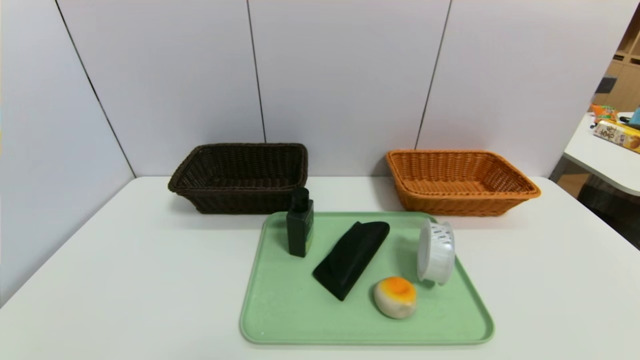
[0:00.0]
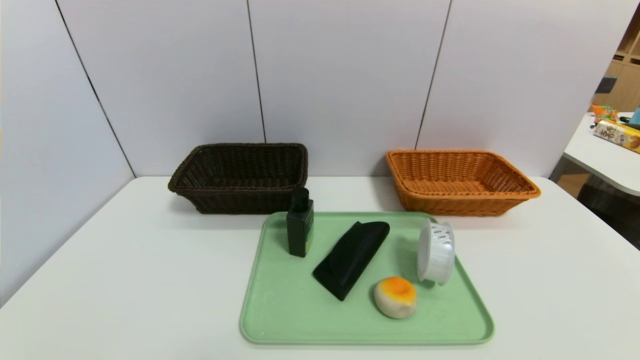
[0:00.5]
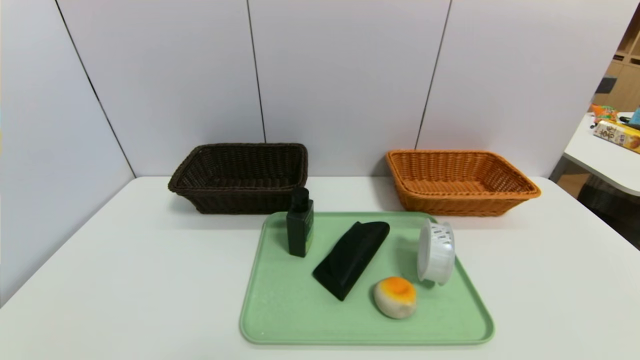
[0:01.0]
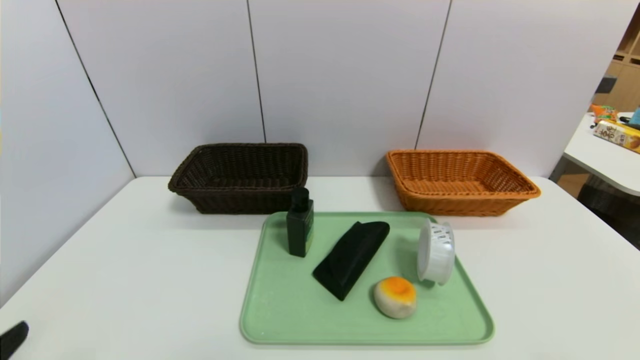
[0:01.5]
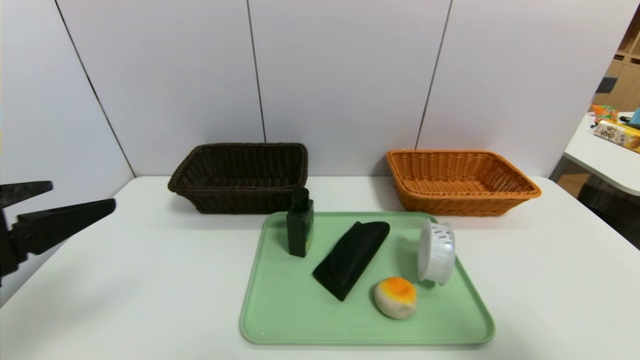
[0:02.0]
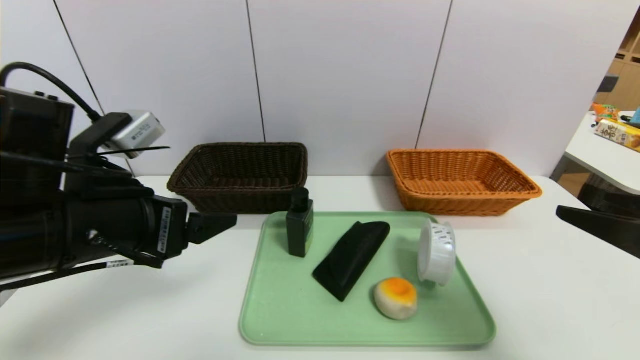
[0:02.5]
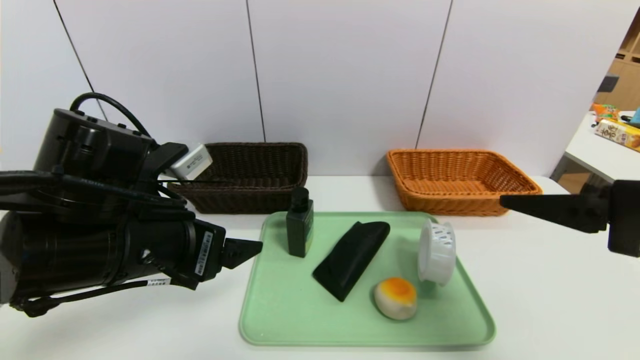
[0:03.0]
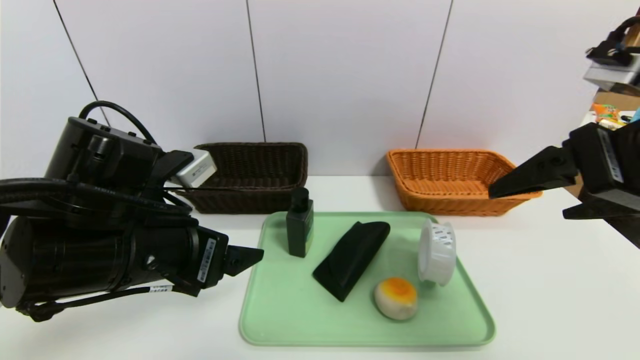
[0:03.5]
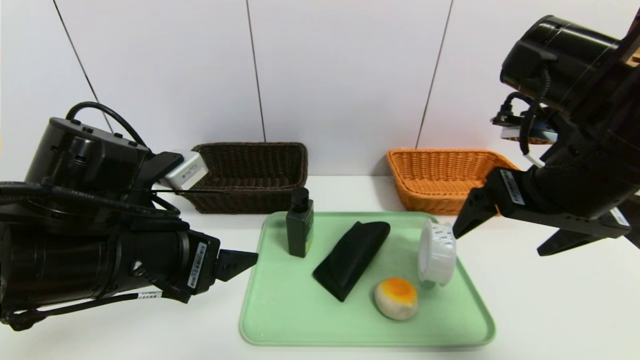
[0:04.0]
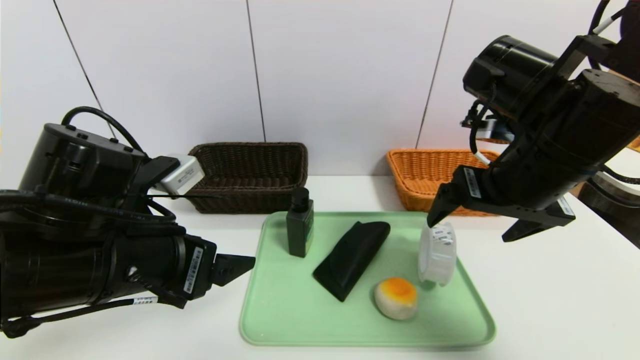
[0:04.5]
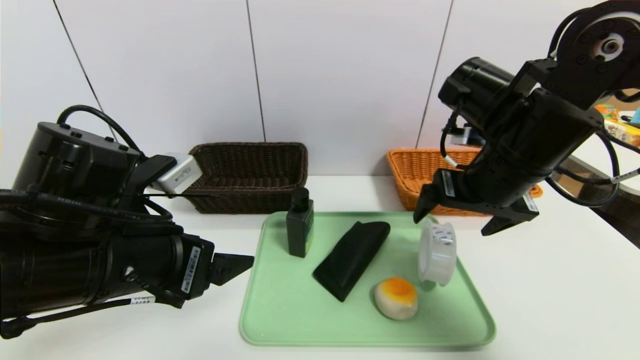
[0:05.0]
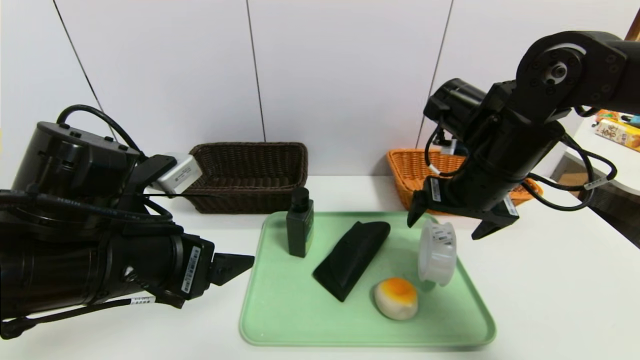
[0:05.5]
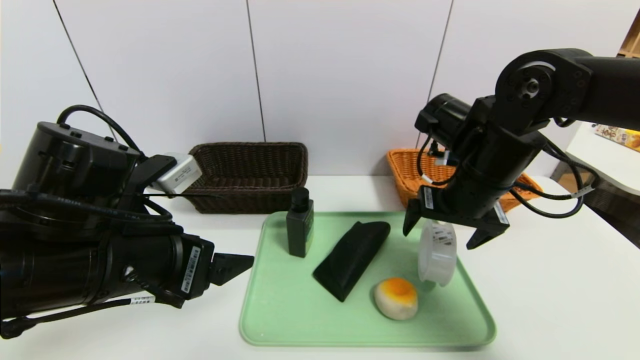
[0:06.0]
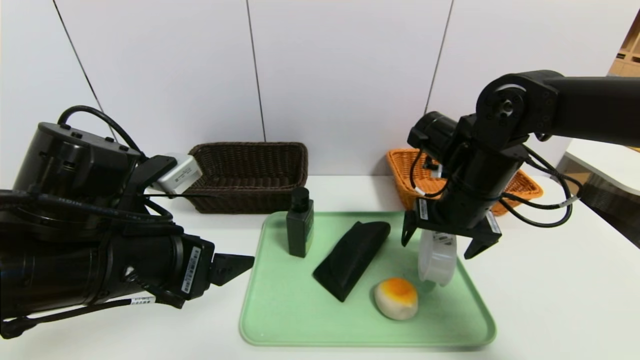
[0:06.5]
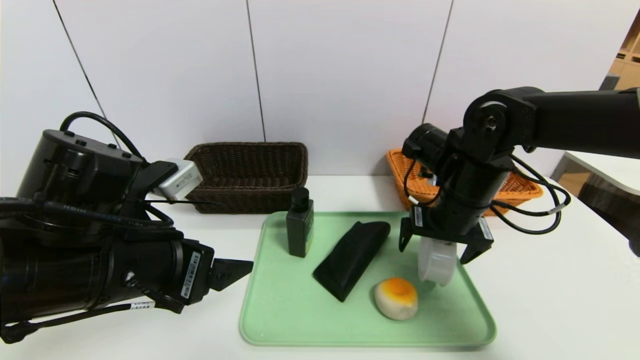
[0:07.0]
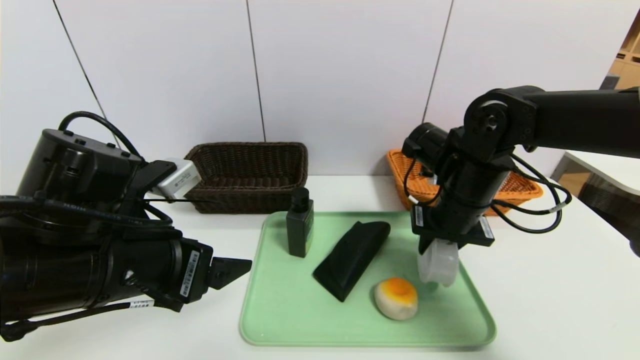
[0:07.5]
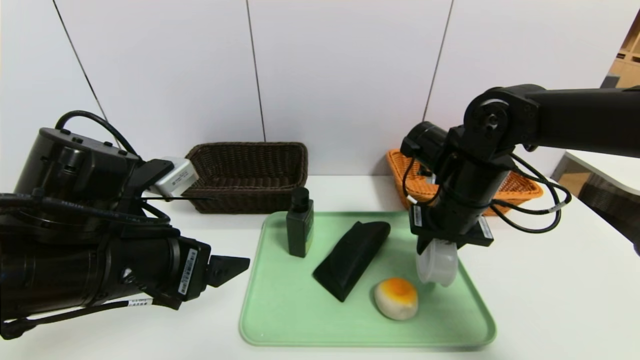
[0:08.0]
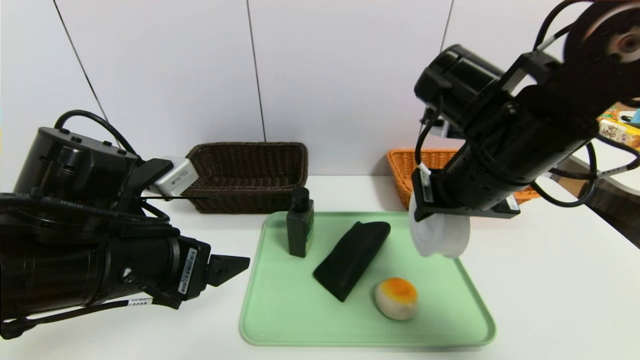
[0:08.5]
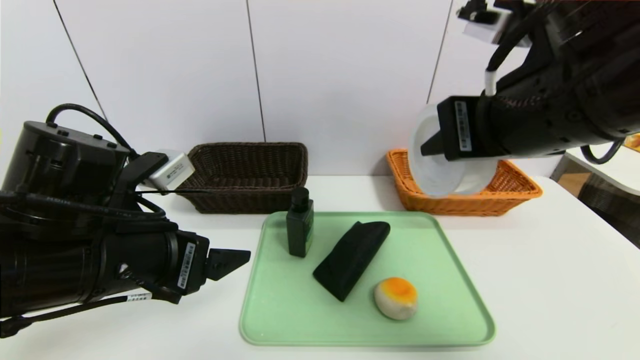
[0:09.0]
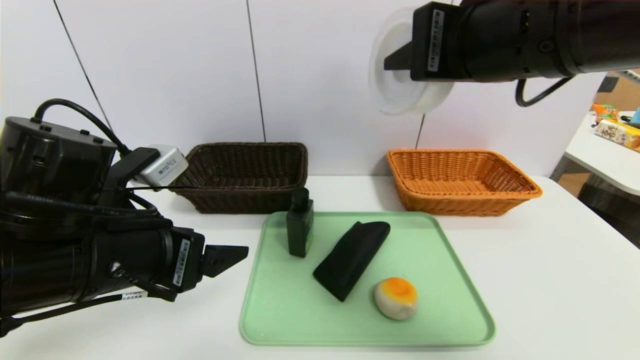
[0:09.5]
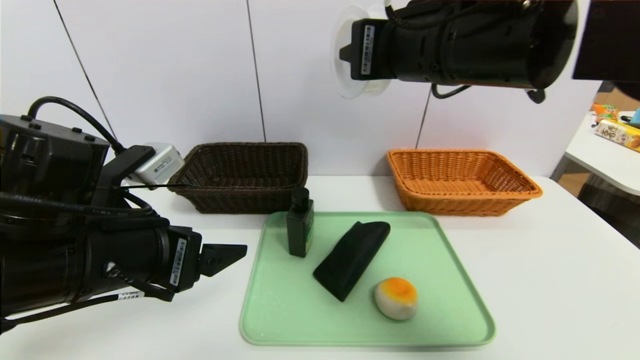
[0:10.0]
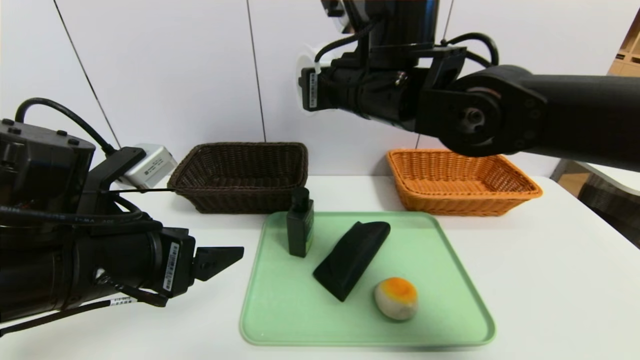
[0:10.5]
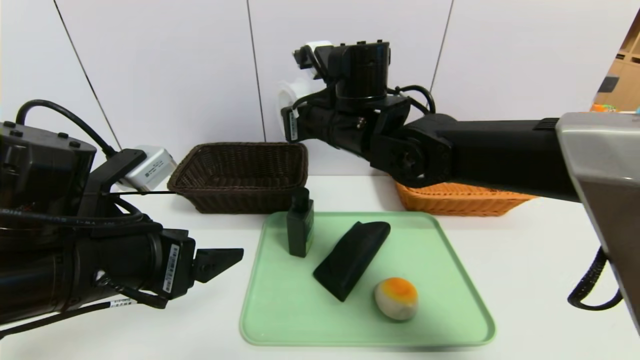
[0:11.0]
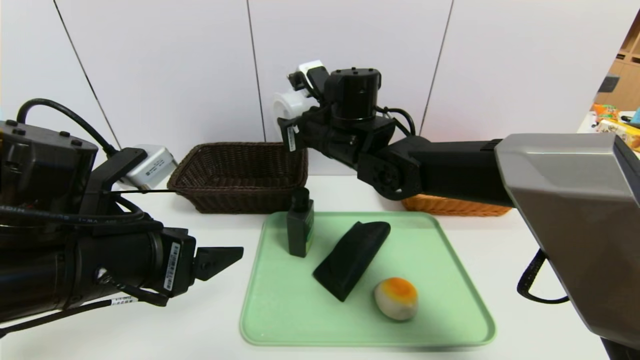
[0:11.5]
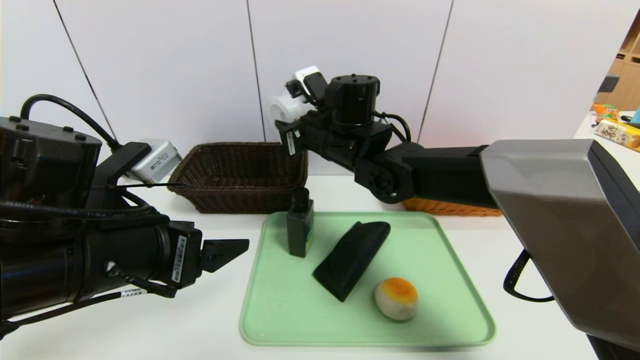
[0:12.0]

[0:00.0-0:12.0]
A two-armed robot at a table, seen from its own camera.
Task of the whole recording: place the food in the right basket with the right gripper, and place the non food items in the left basket with the left gripper.
0:00.0 to 0:02.0: The right gripper travels upward by about 20 cm, while the left gripper heads upward and forward, covering some 25 cm.
0:02.0 to 0:04.0: The left gripper goes some 15 cm to the right, forward and downward; the right gripper heads forward and to the left, covering some 20 cm.
0:04.0 to 0:06.0: The right gripper moves forward and downward, roughly 10 cm.
0:06.0 to 0:08.0: The right gripper closes.
0:08.0 to 0:10.0: The right gripper goes about 20 cm upward and to the left.
0:10.0 to 0:12.0: The right gripper is displaced downward, forward and to the left by about 20 cm.

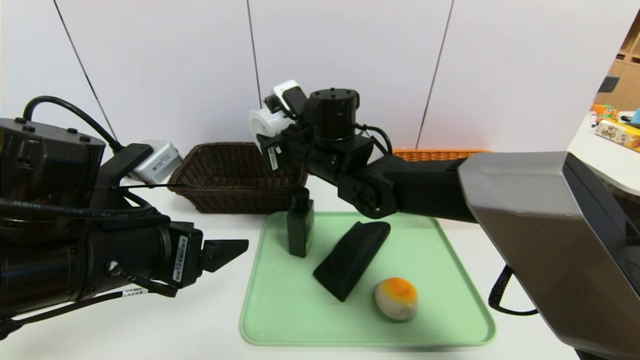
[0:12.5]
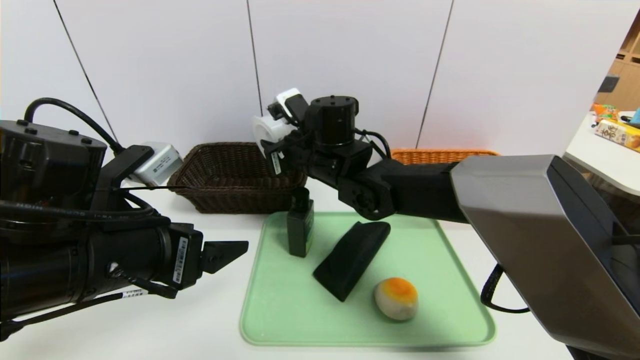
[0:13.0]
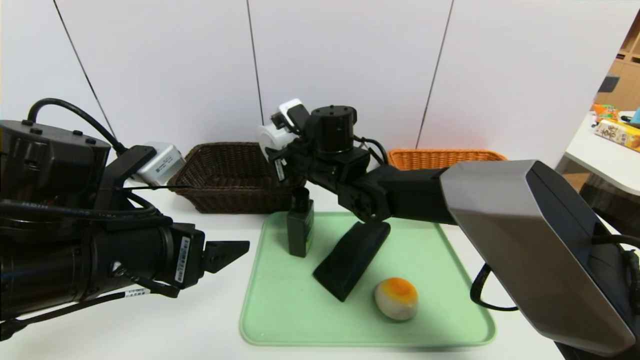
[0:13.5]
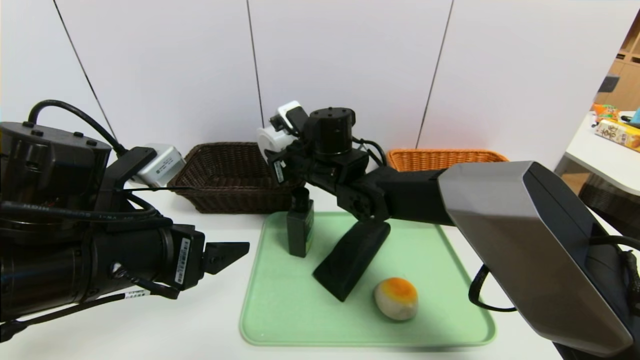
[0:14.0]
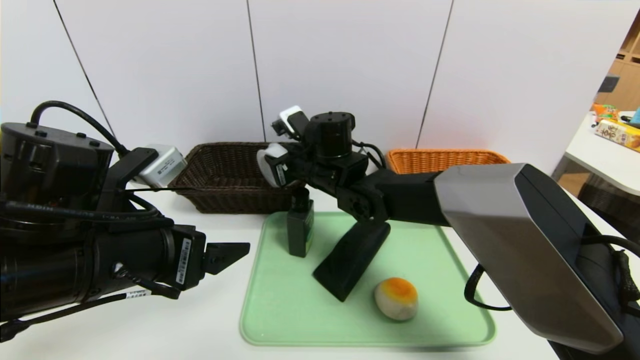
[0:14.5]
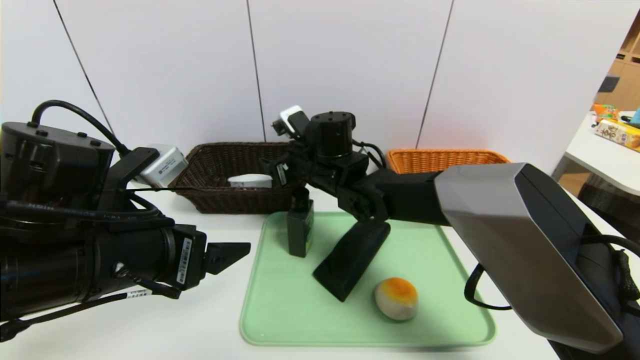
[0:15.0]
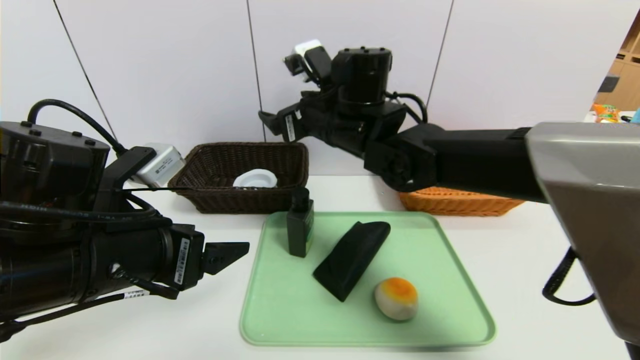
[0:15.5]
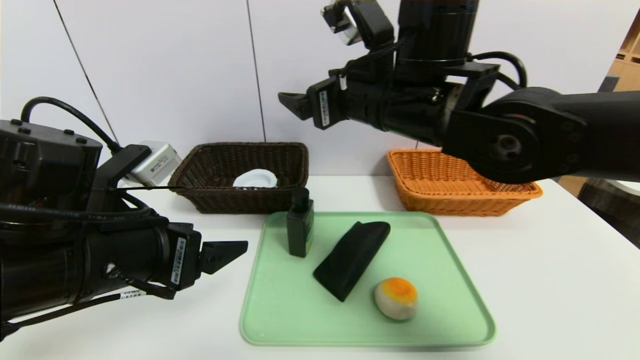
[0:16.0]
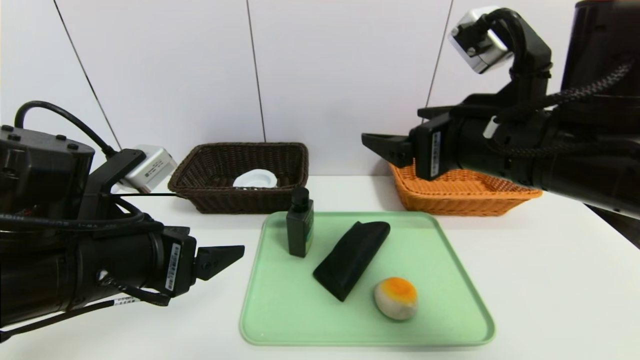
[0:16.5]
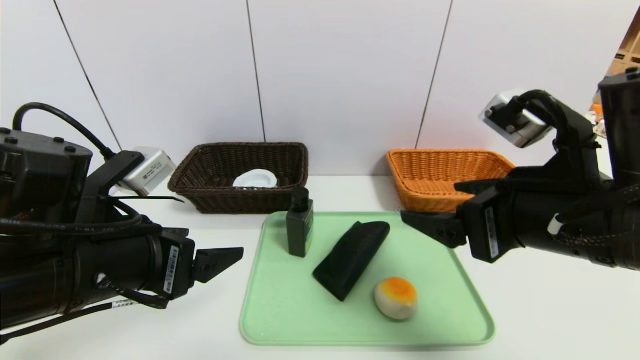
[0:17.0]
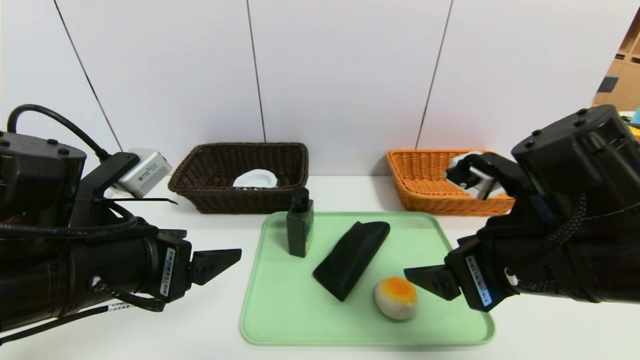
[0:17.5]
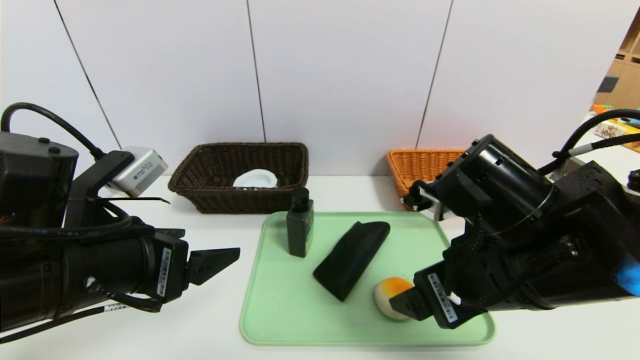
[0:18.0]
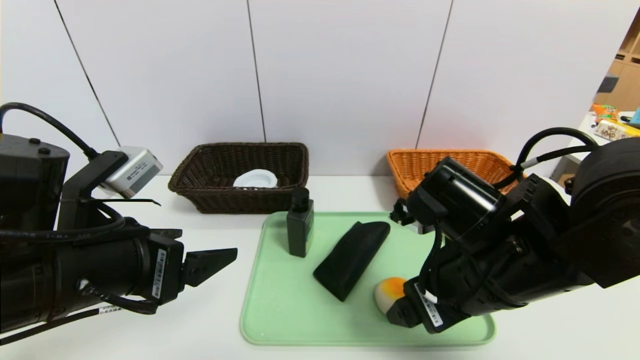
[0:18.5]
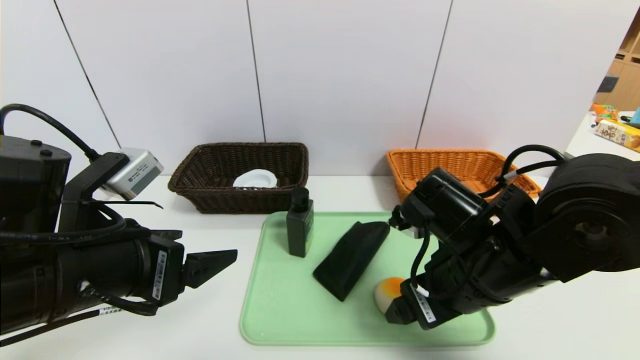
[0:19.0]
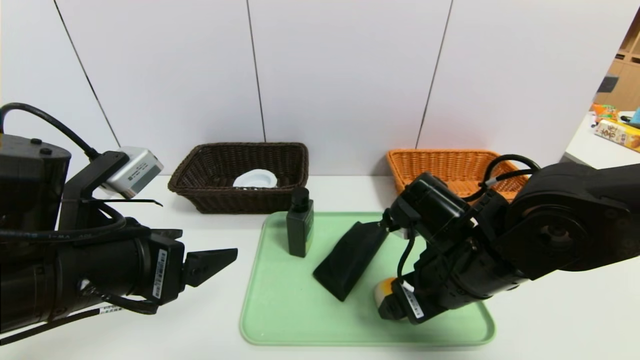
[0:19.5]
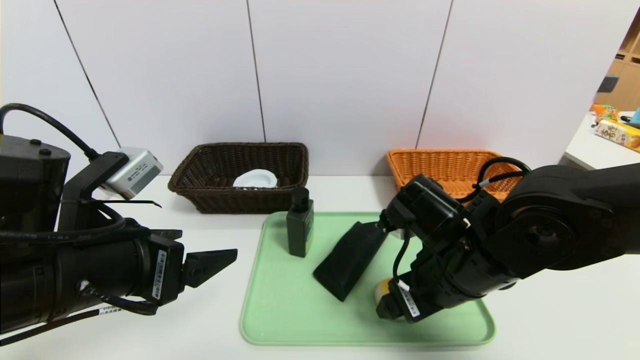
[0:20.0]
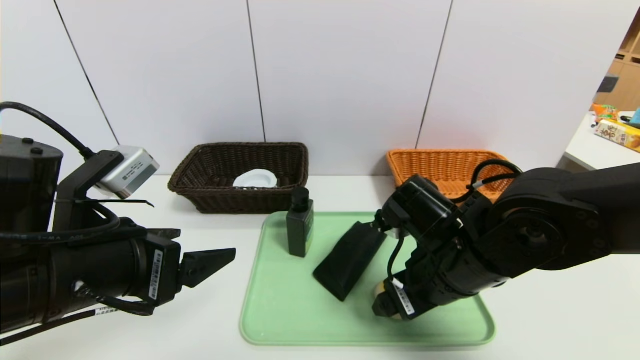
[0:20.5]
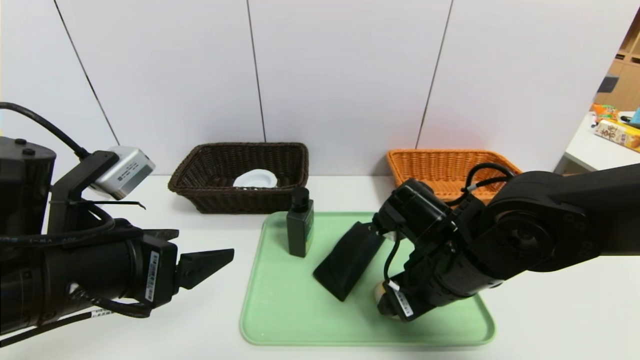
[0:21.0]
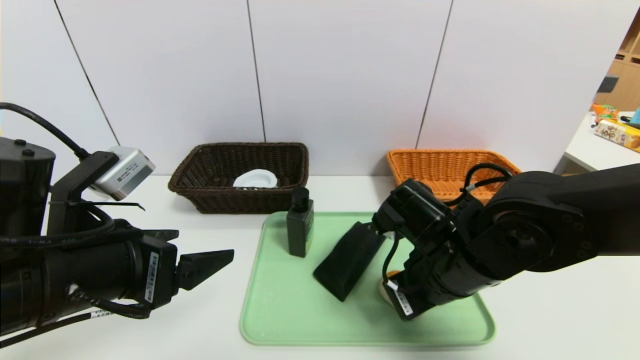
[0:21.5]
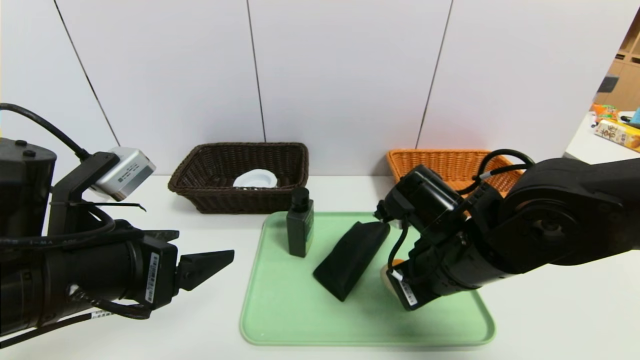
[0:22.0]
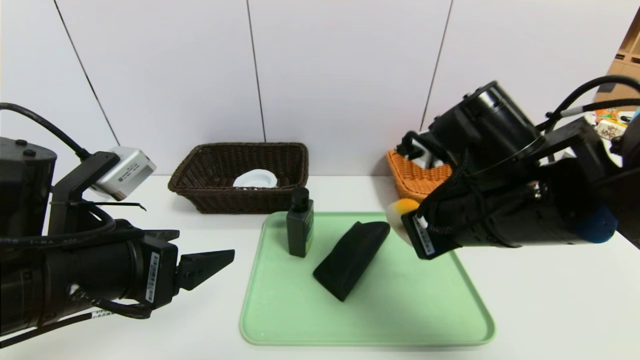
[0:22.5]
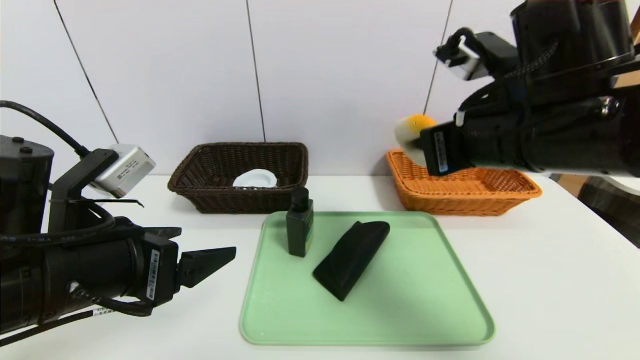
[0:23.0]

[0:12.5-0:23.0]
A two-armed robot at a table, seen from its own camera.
Task of the whole recording: place the food in the right basket with the right gripper, and place the non food items in the left basket with the left gripper.
0:12.5 to 0:14.5: There are only small adjustments of the grippers.
0:14.5 to 0:16.5: The right gripper moves backward, to the right and upward, approximately 25 cm, and opens.
0:16.5 to 0:19.0: The right gripper is displaced downward by about 10 cm.
0:19.0 to 0:21.0: The grippers stay close to where they were, moving slightly.
0:21.0 to 0:23.0: The right gripper travels upward by approximately 15 cm, and closes its fingers.
